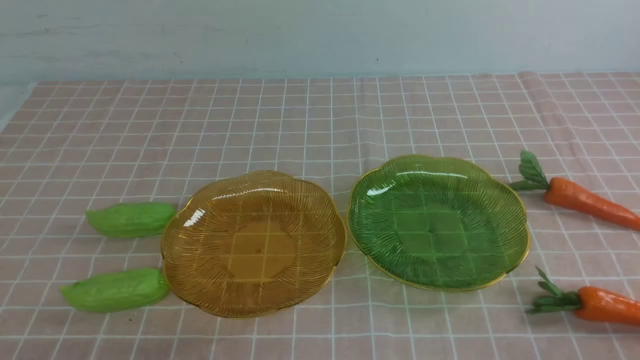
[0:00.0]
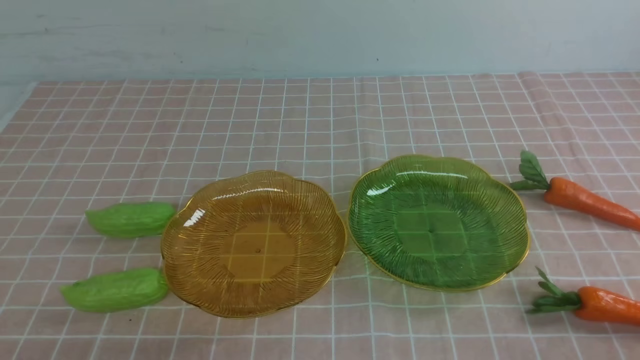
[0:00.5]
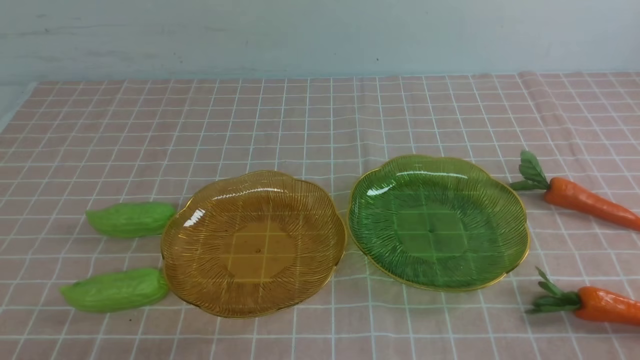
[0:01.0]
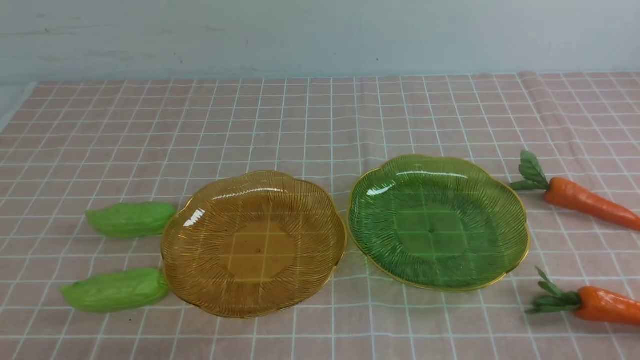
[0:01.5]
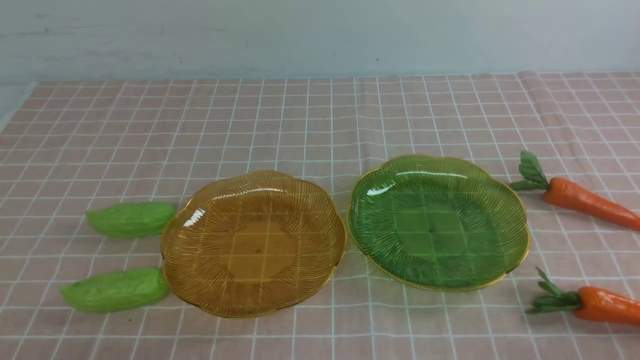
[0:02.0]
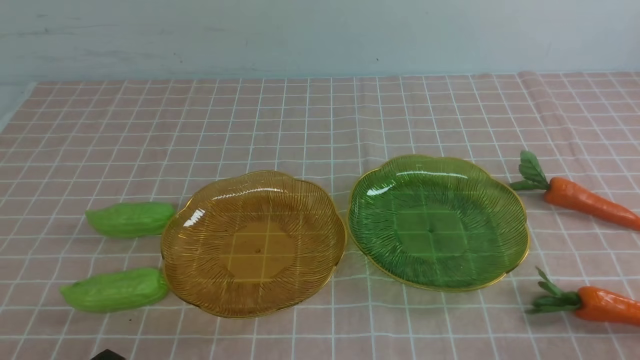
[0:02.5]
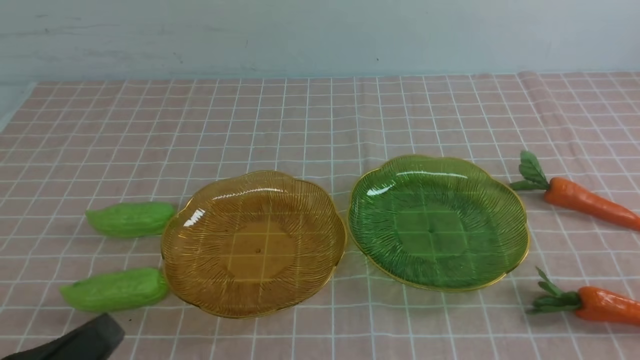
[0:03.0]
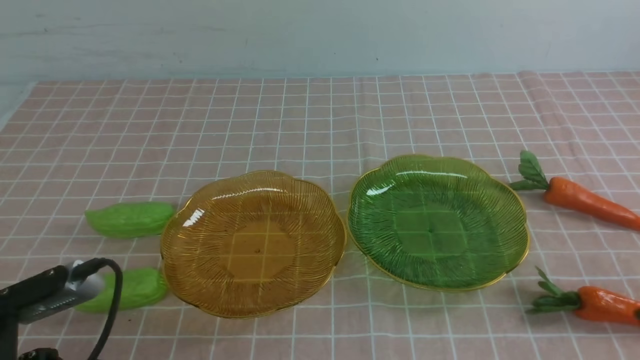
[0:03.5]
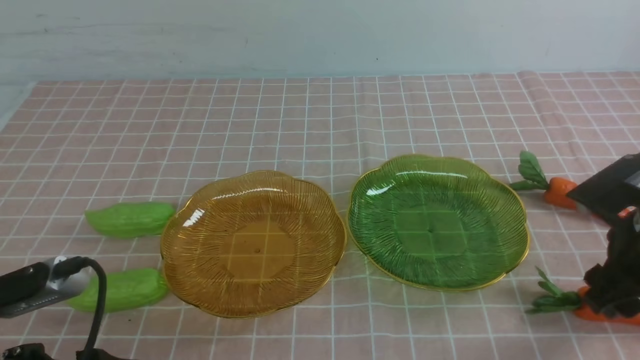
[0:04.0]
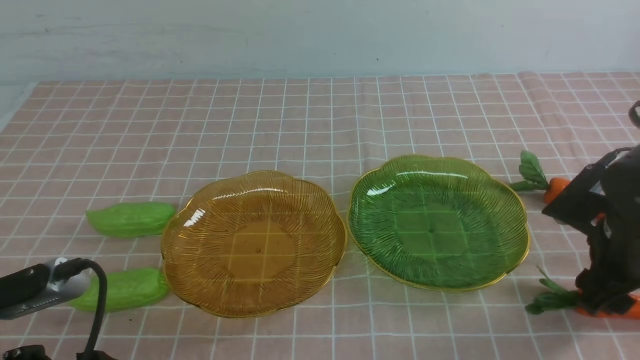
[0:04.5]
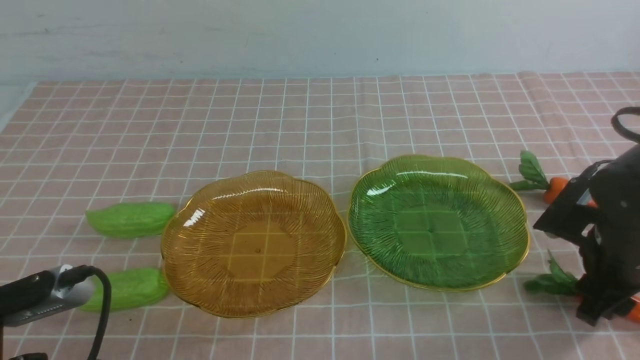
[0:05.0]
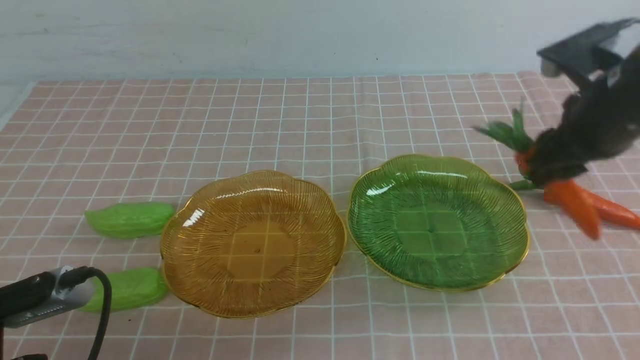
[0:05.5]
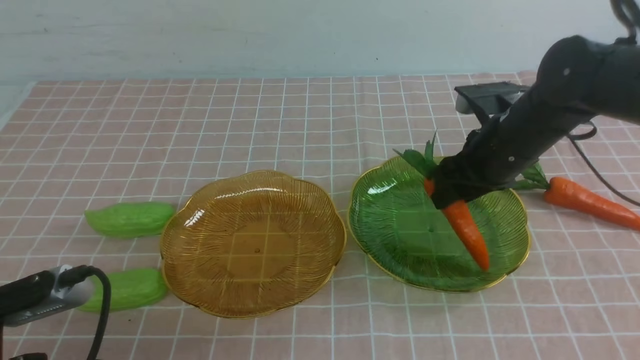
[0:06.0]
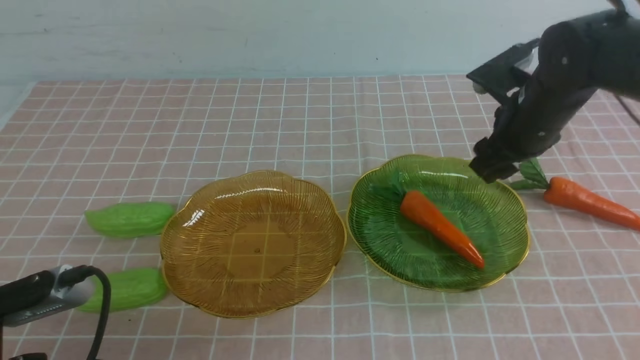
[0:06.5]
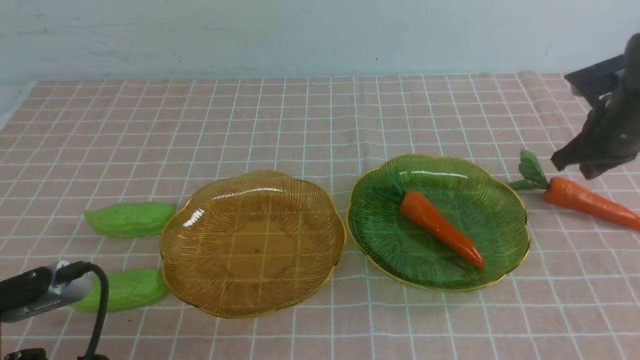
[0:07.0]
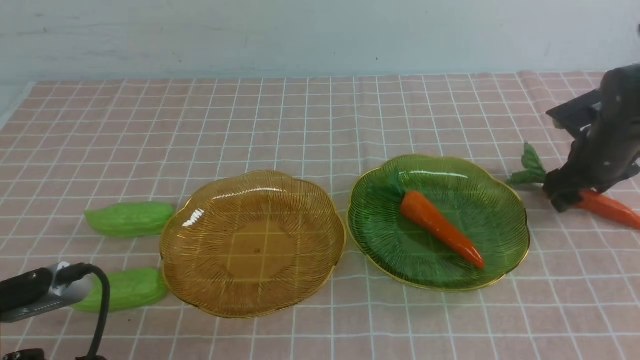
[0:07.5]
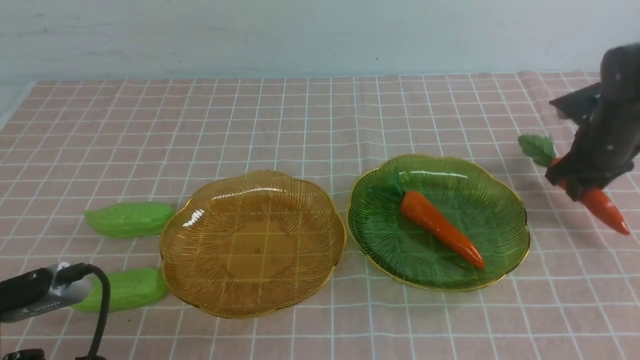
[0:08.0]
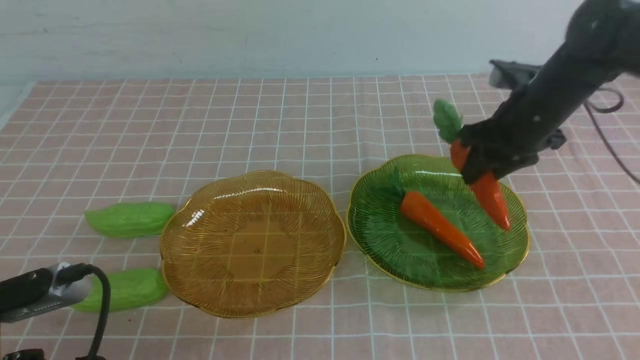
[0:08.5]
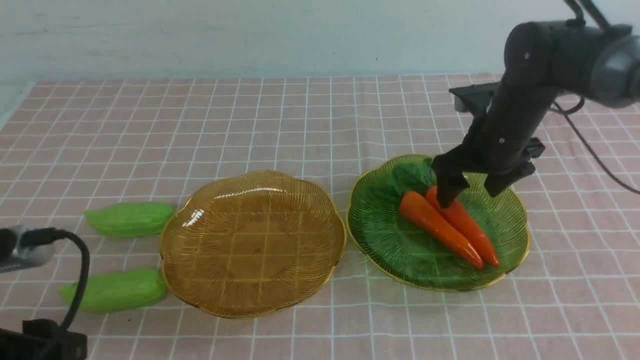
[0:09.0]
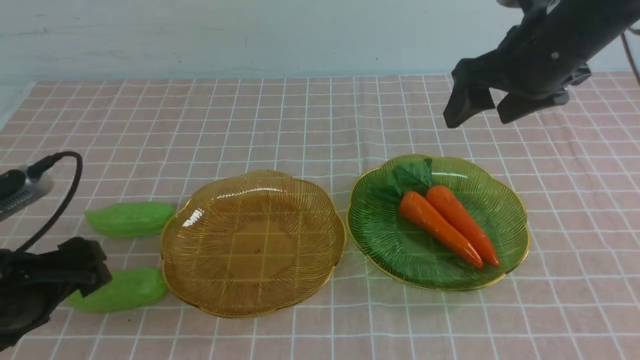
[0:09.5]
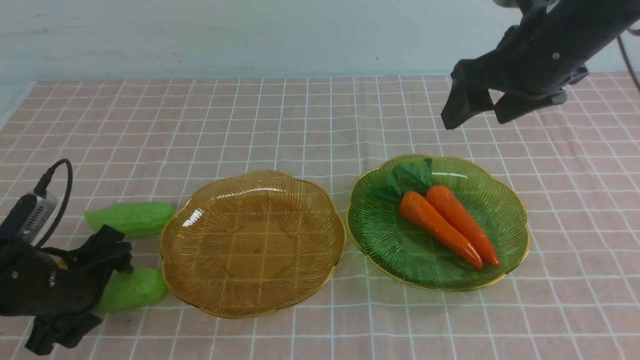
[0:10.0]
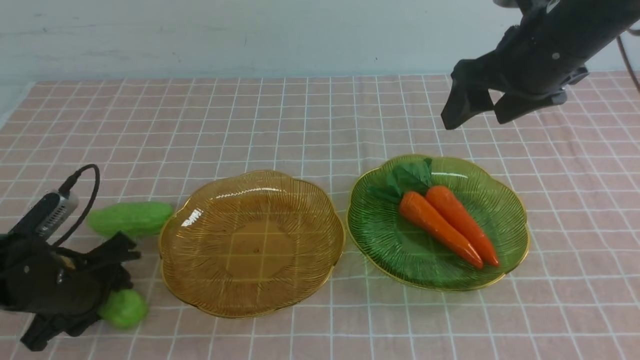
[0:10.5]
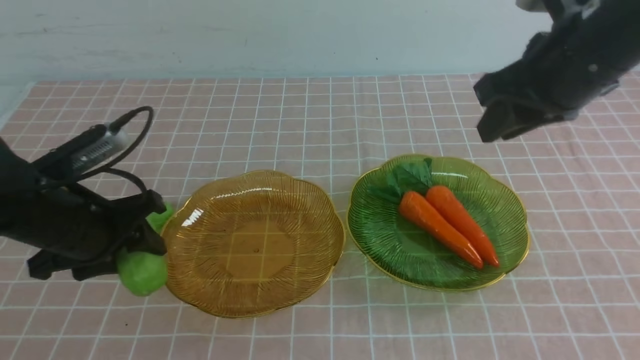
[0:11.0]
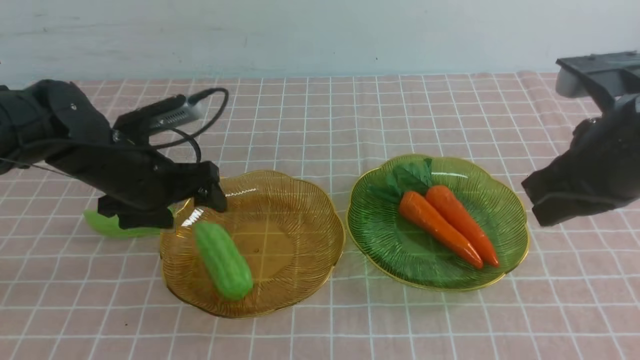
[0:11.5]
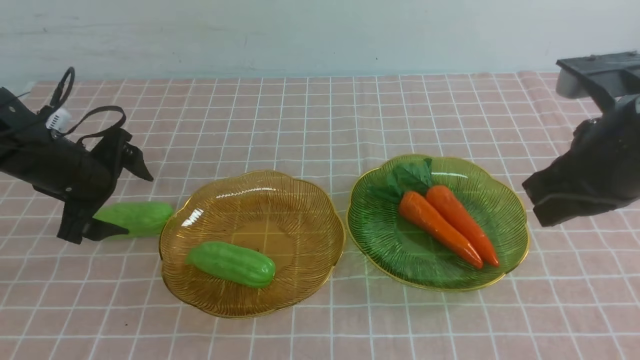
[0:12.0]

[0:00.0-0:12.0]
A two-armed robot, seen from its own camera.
Step, 0:00.0 to 0:09.0: use the right arm to grab a carrot and put it into the right plate.
0:02.0 to 0:04.0: The right gripper moves forward, approximately 20 cm, and opens. The left gripper goes about 10 cm upward and forward, and opens.
0:04.0 to 0:06.0: The right gripper moves forward and to the left, approximately 15 cm.
0:08.0 to 0:10.0: The left gripper travels forward and downward by about 15 cm. The right gripper shifts some 15 cm upward, backward and to the left, and opens.
0:10.0 to 0:12.0: The right gripper is displaced backward by some 10 cm, and closes. The left gripper goes approximately 10 cm forward, and opens up.

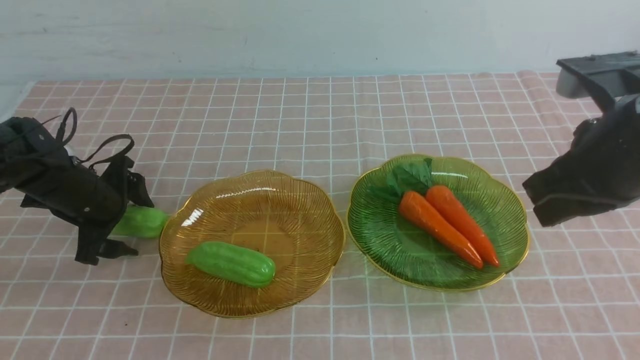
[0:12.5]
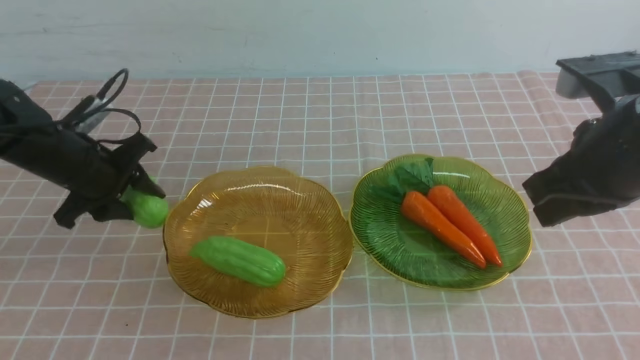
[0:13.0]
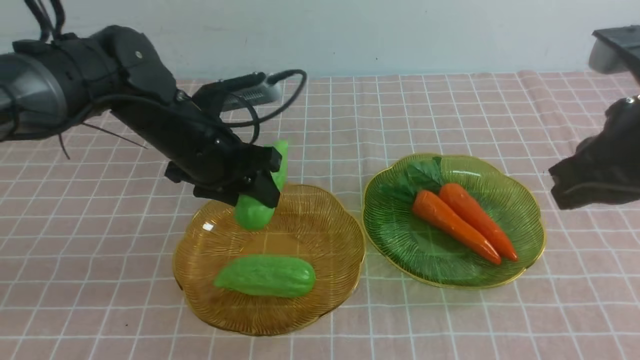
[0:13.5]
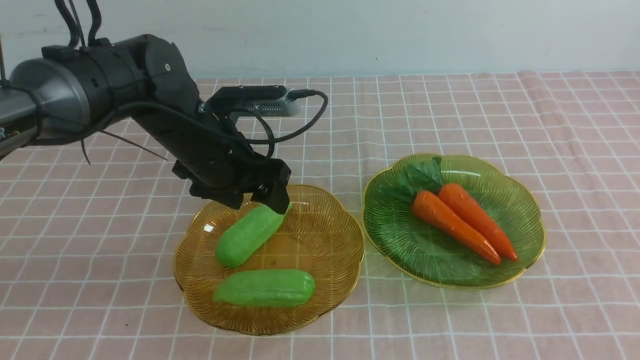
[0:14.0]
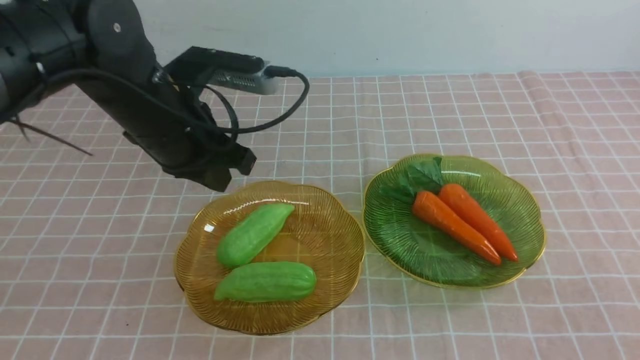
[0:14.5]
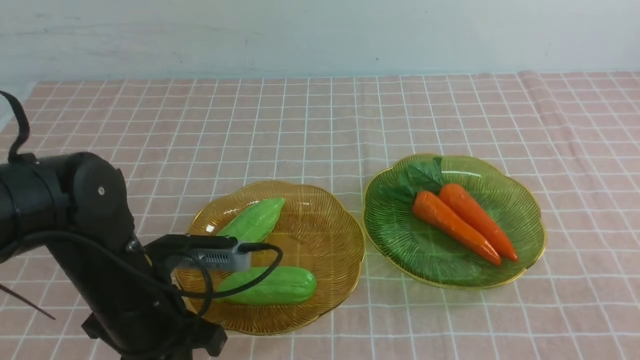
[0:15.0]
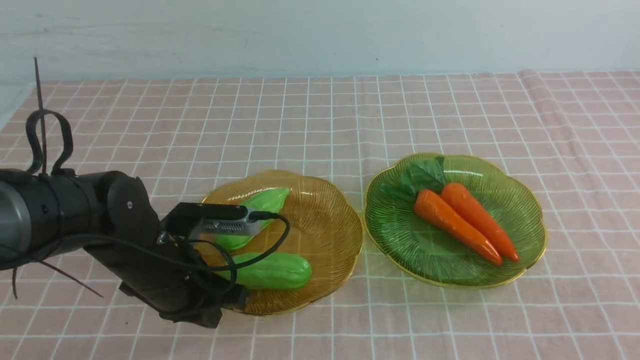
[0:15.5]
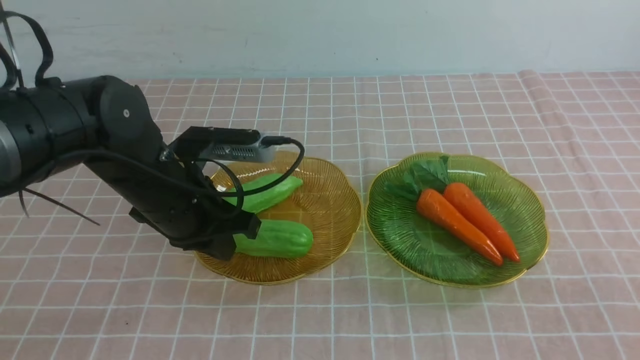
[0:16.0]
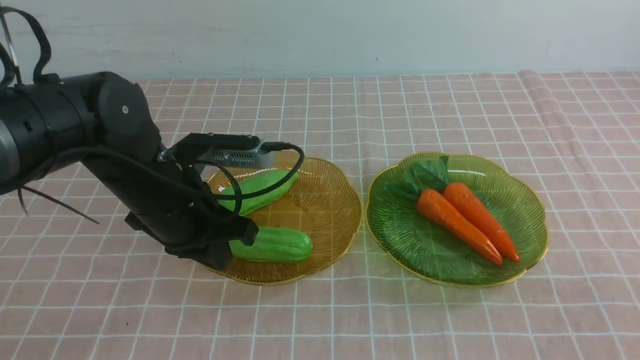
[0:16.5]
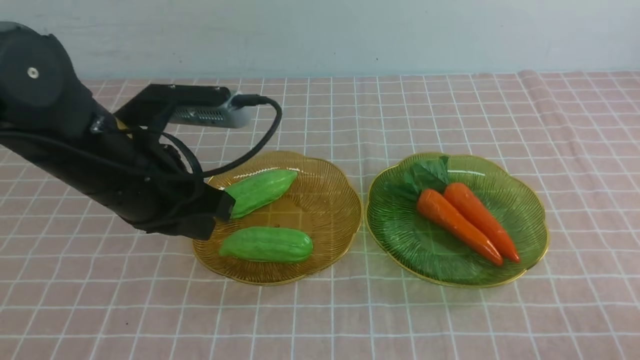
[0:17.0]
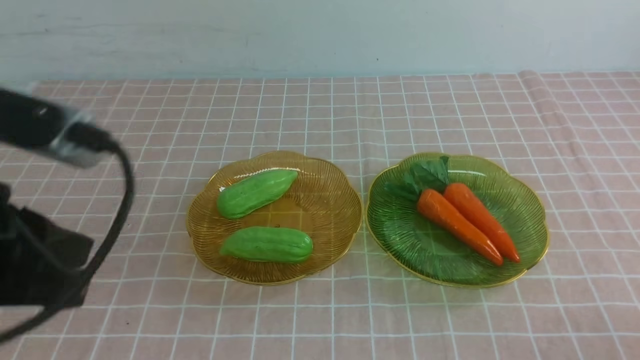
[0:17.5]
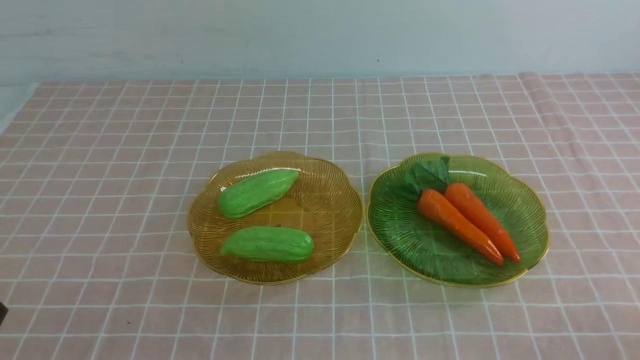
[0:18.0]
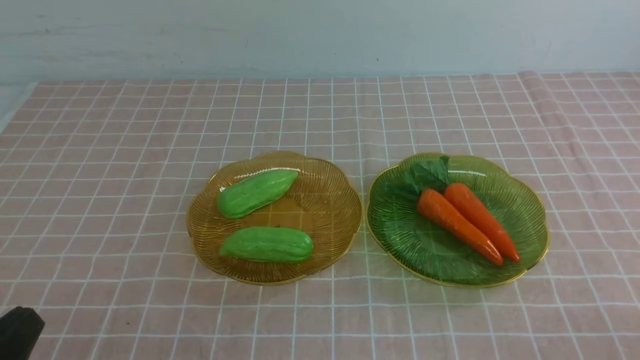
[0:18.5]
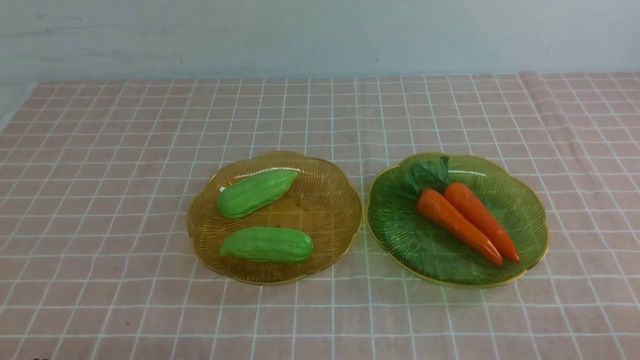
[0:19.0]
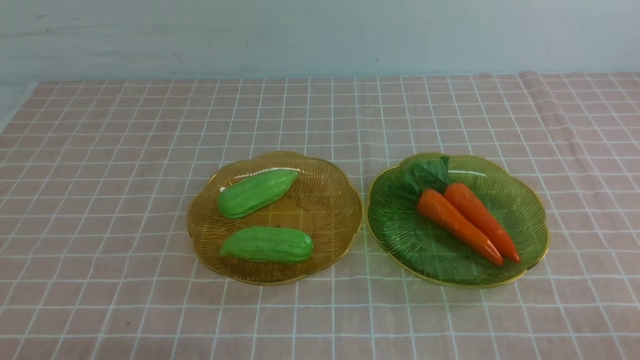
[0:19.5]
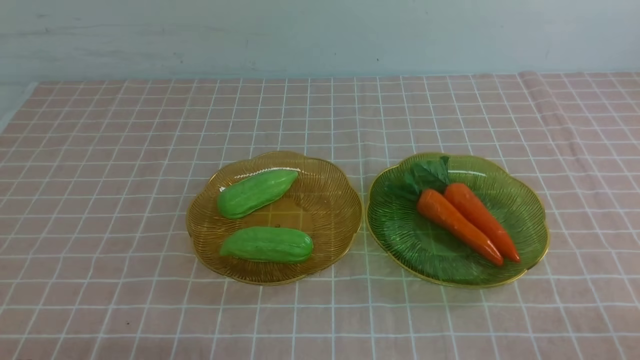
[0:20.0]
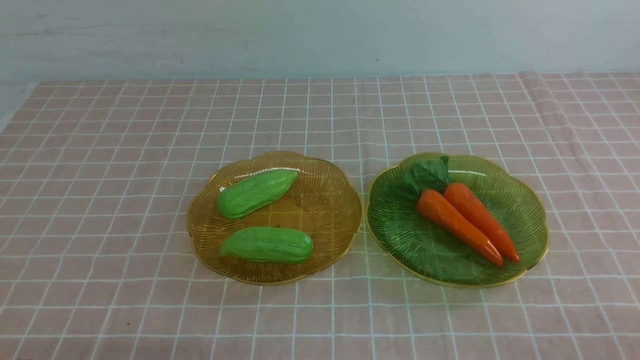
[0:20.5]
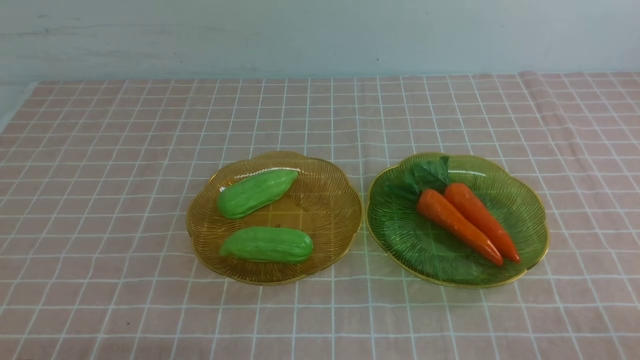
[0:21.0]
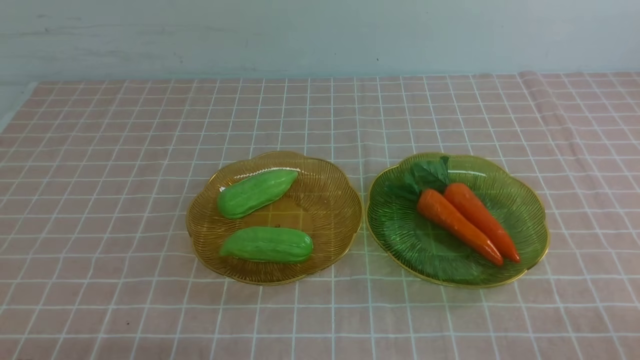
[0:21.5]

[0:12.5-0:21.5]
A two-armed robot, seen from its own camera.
0:12.5 to 0:14.5: The right gripper moves backward, some 25 cm. Meanwhile the left gripper is displaced to the right, upward and backward by about 20 cm, and closes.
0:14.5 to 0:17.0: The left gripper travels downward and back again, roughly 10 cm each way; the right gripper shifts about 10 cm downward.
0:17.0 to 0:19.5: The left gripper shifts approximately 25 cm backward, downward and to the left.
0:19.5 to 0:21.5: Both grippers stay put.
